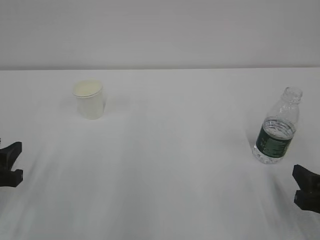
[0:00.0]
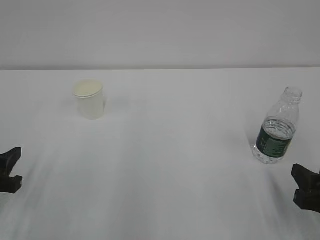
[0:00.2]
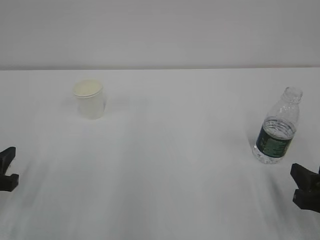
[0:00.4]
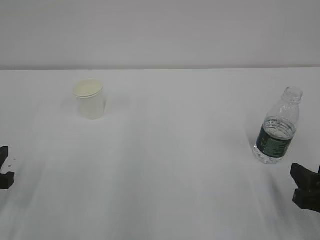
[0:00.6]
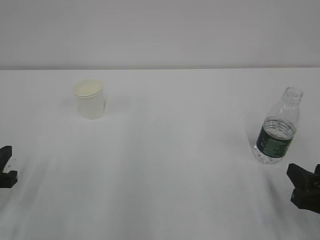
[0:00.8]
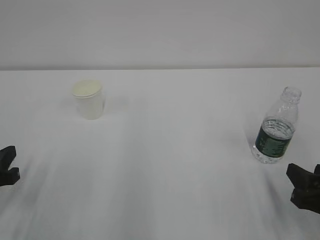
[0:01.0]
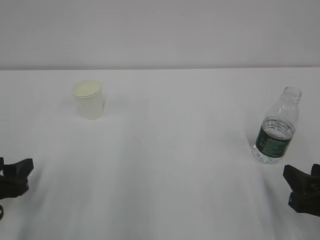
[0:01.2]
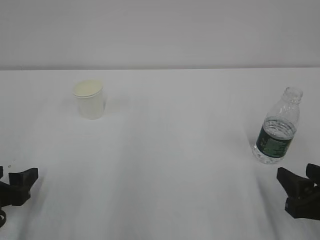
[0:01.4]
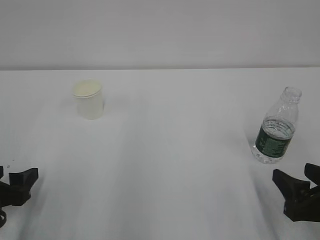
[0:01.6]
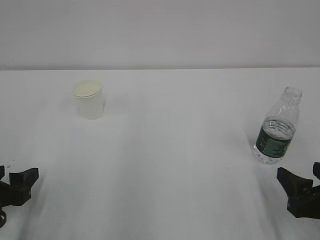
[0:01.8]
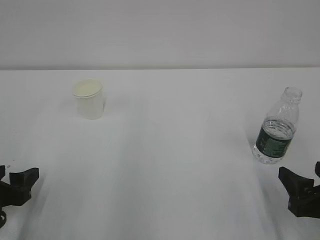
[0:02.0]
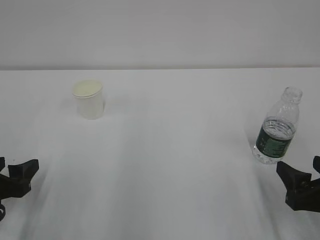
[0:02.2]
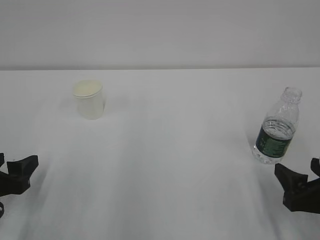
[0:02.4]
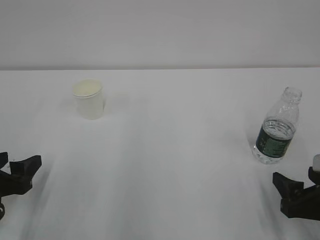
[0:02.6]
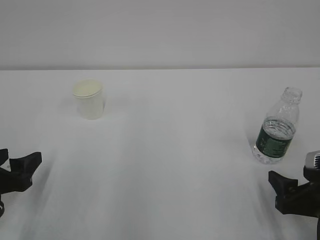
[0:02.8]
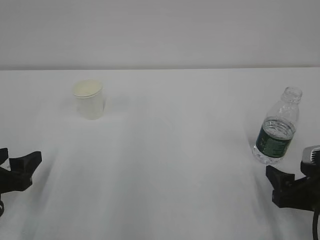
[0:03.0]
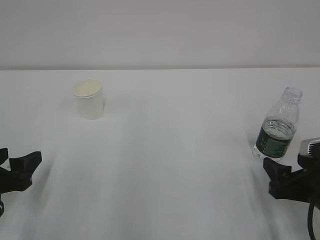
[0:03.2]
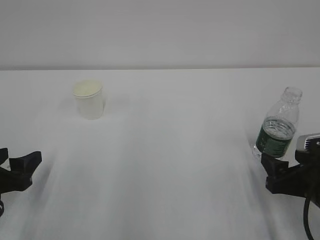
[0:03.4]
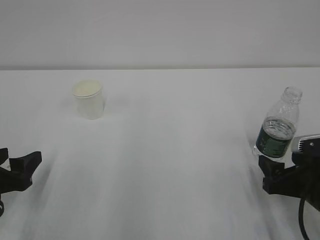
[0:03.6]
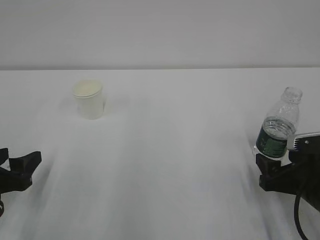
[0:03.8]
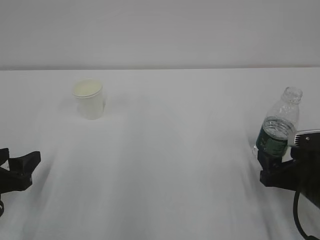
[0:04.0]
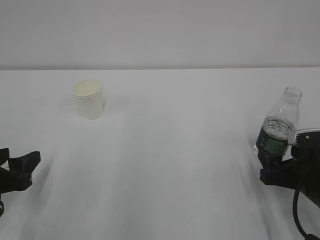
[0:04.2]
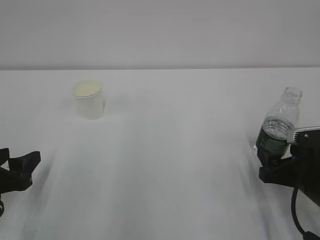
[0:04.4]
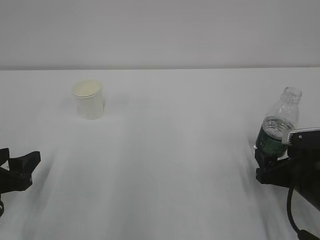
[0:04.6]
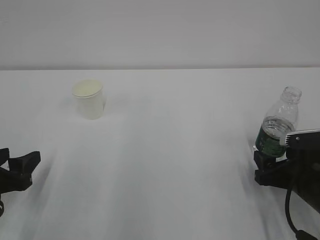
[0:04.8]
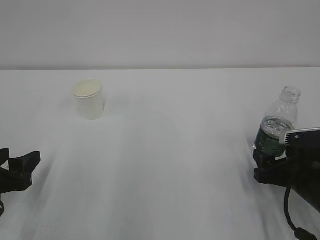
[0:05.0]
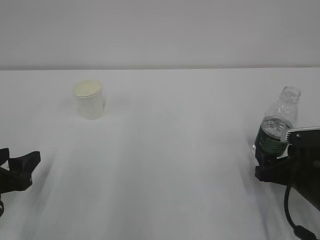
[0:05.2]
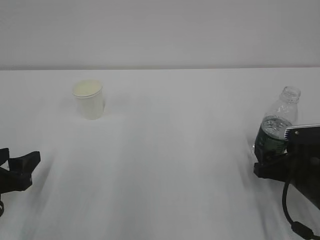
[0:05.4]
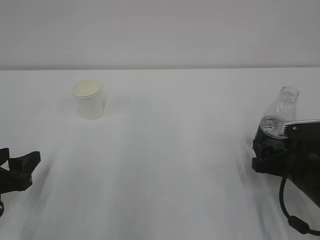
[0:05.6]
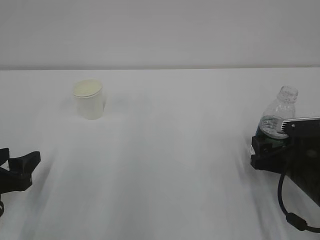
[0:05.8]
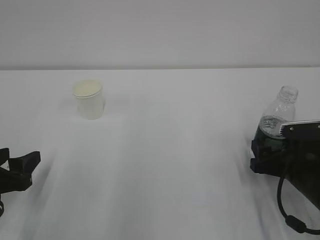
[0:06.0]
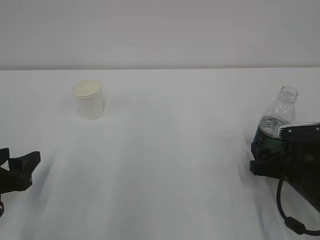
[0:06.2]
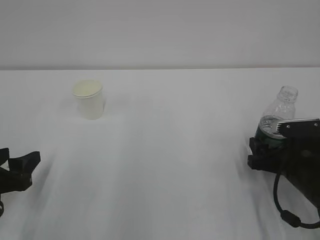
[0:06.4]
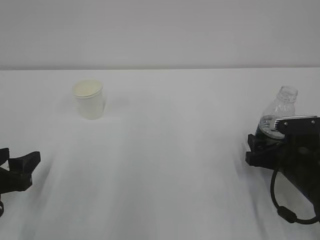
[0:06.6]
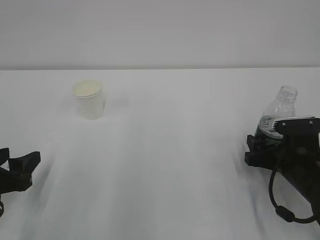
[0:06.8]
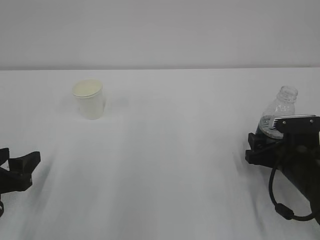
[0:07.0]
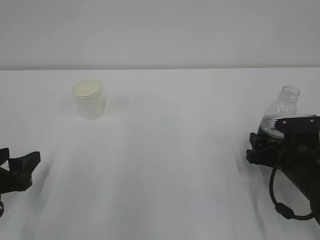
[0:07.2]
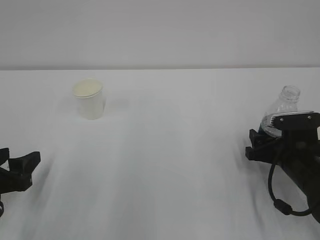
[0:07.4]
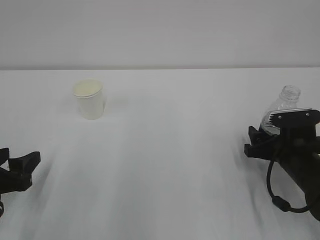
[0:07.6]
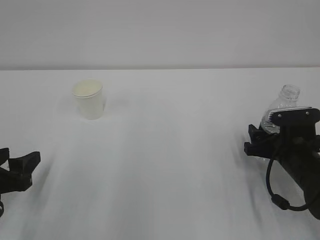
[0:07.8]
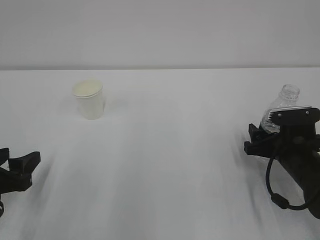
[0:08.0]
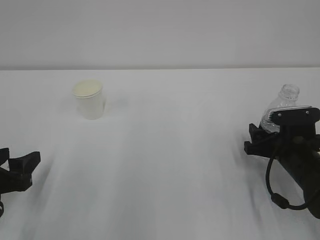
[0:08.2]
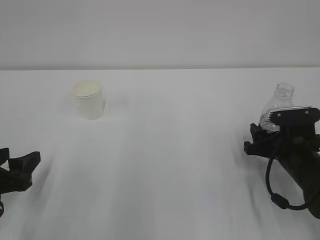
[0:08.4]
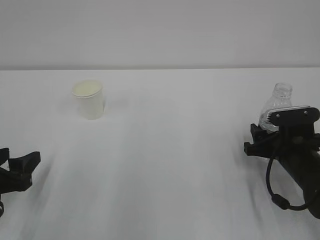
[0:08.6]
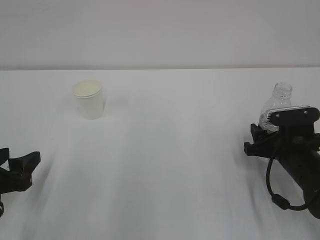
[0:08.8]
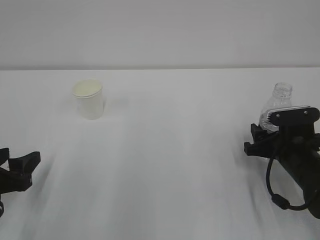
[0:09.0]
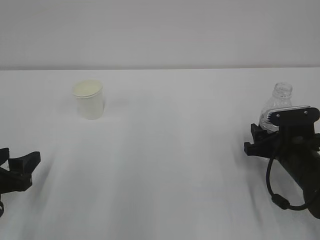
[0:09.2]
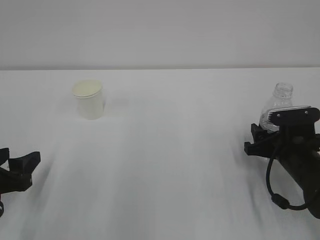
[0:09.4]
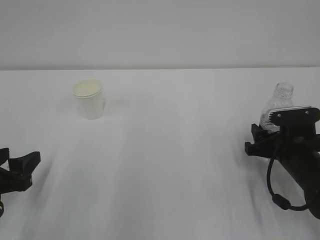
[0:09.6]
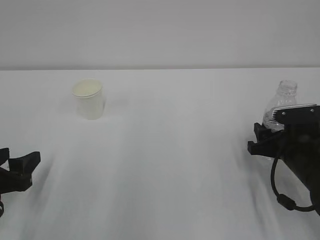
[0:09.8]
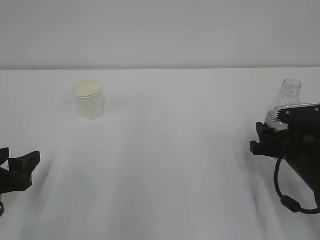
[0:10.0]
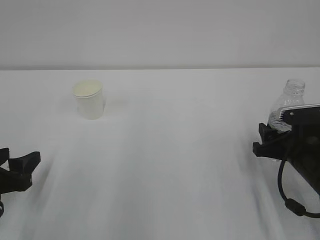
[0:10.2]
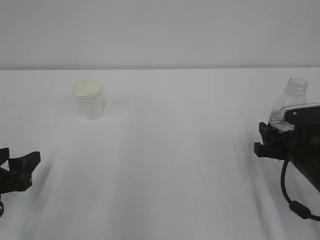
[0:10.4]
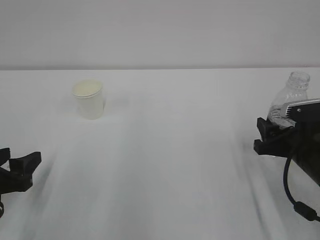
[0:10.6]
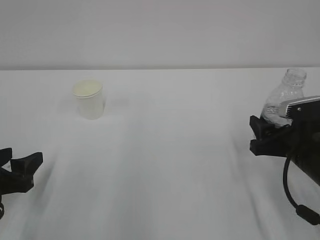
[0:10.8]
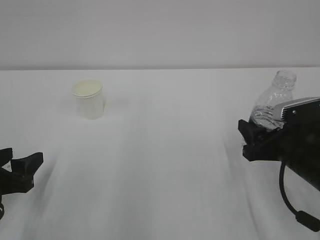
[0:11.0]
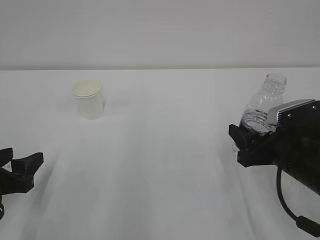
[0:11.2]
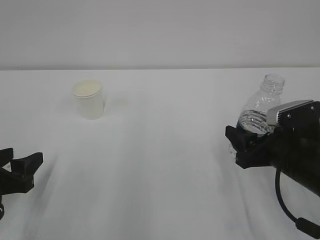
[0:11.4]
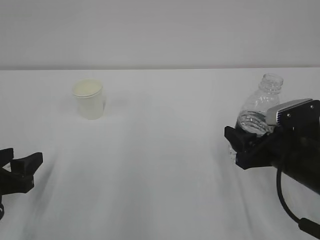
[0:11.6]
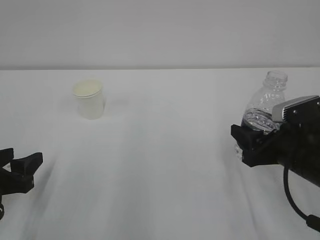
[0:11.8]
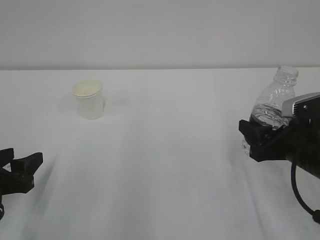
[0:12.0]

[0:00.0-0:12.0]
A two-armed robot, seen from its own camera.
0:00.0 to 0:01.6: The right gripper opens. The left gripper opens.
0:01.6 to 0:03.0: The grippers stay close to where they were, moving slightly.
0:03.0 to 0:04.4: The grippers stay close to where they were, moving slightly.
0:04.4 to 0:06.0: The grippers make only small movements.
0:06.0 to 0:07.6: The grippers move only a little.
0:07.6 to 0:09.0: The right gripper closes its fingers.
0:09.0 to 0:10.4: The grippers make only small movements.

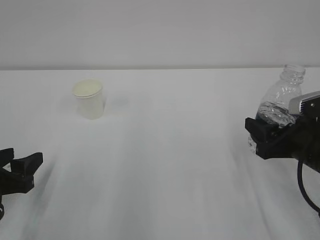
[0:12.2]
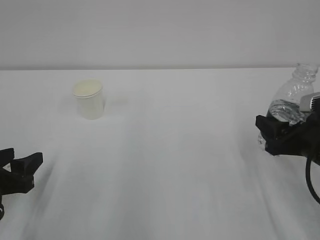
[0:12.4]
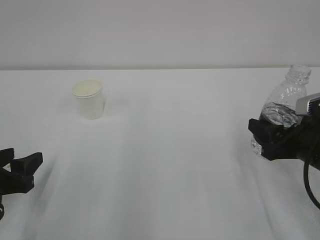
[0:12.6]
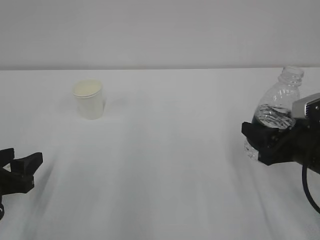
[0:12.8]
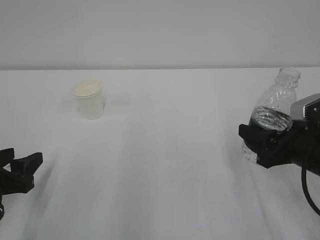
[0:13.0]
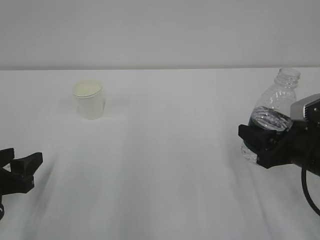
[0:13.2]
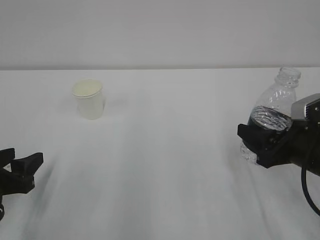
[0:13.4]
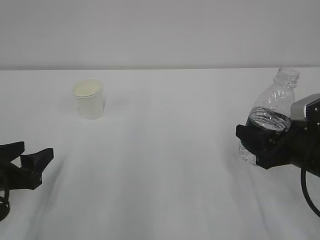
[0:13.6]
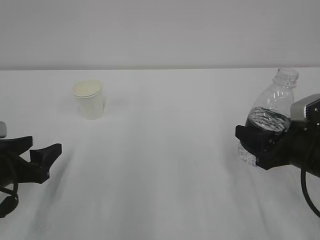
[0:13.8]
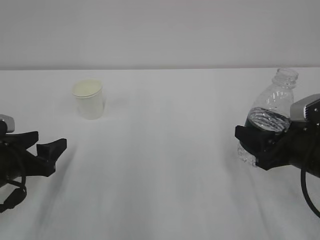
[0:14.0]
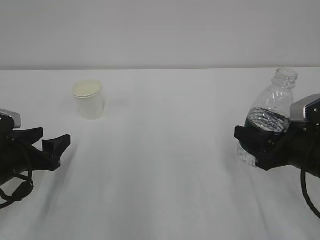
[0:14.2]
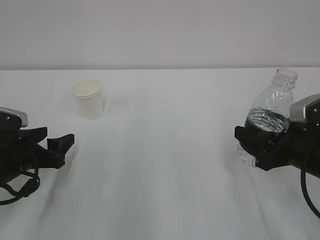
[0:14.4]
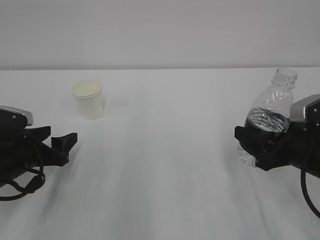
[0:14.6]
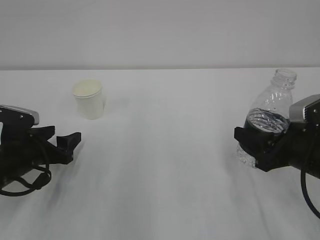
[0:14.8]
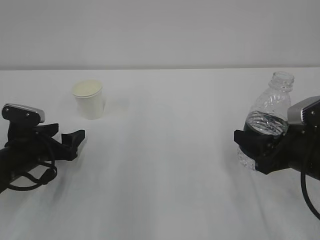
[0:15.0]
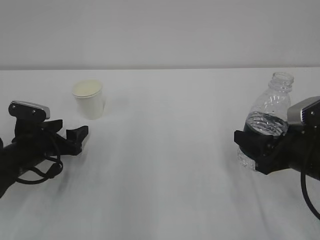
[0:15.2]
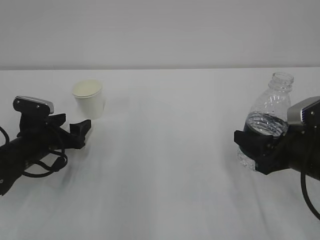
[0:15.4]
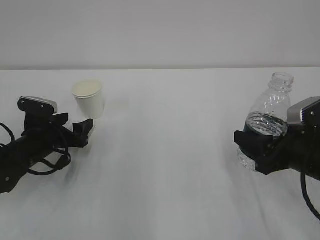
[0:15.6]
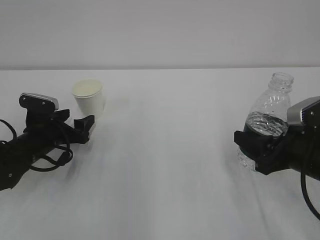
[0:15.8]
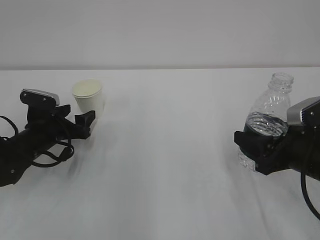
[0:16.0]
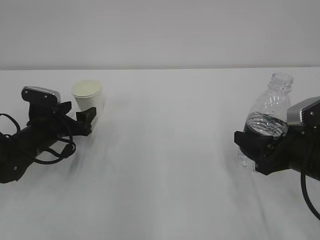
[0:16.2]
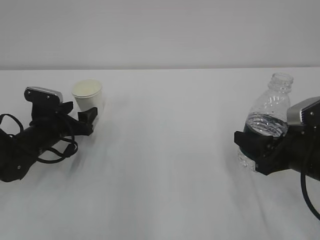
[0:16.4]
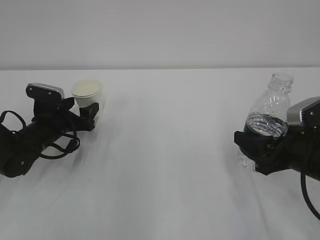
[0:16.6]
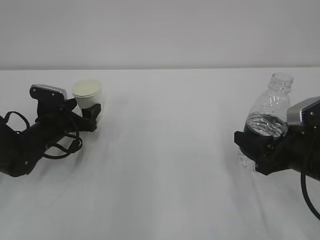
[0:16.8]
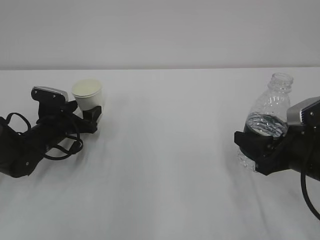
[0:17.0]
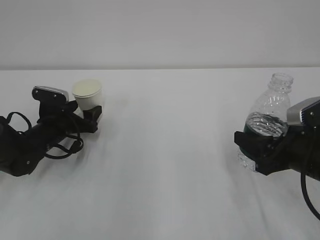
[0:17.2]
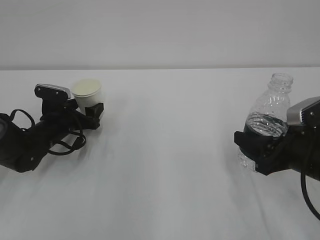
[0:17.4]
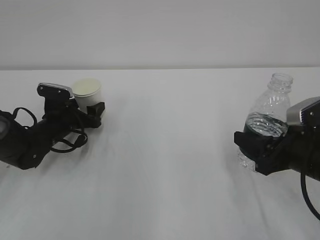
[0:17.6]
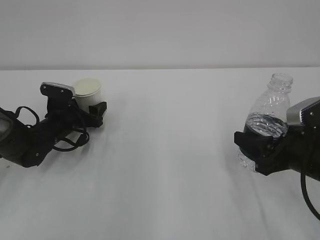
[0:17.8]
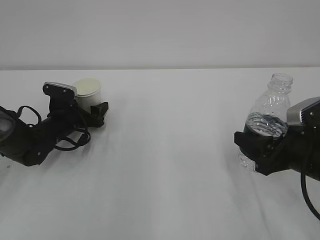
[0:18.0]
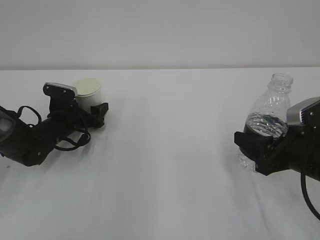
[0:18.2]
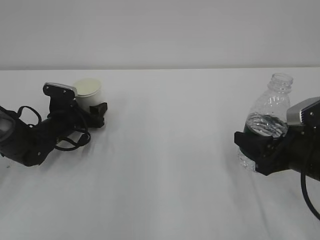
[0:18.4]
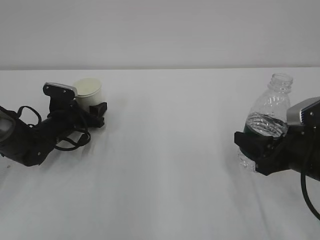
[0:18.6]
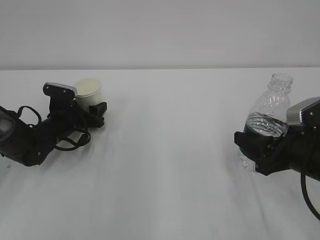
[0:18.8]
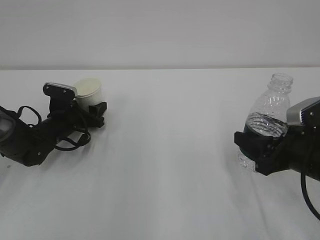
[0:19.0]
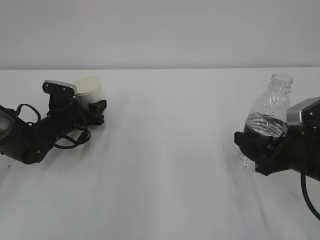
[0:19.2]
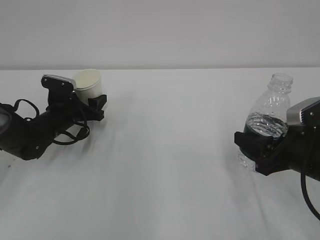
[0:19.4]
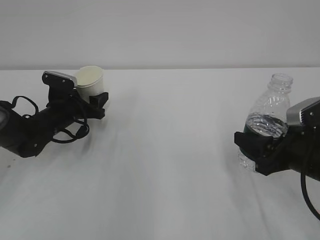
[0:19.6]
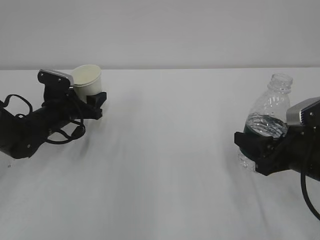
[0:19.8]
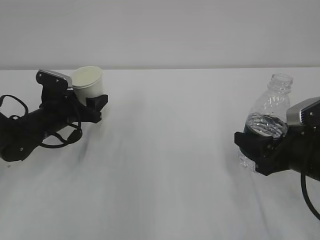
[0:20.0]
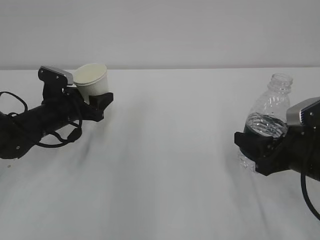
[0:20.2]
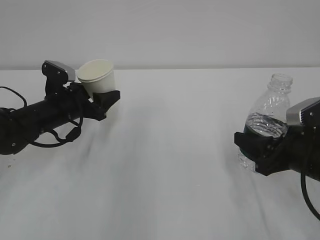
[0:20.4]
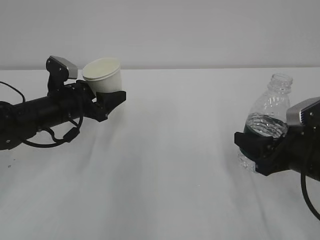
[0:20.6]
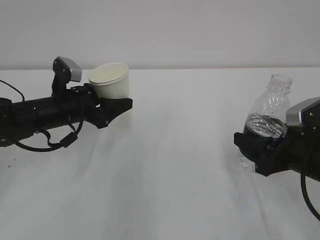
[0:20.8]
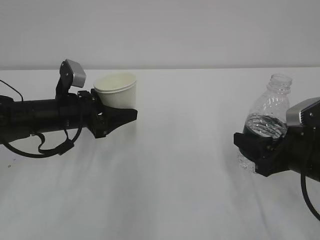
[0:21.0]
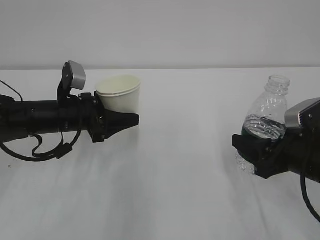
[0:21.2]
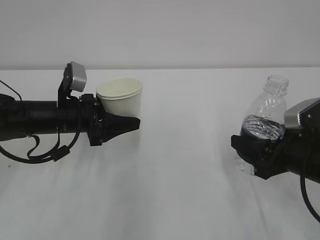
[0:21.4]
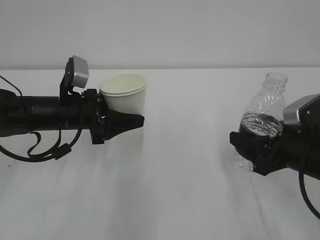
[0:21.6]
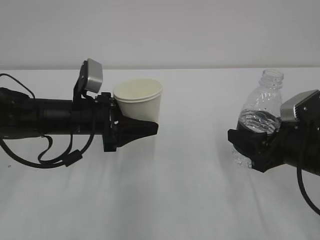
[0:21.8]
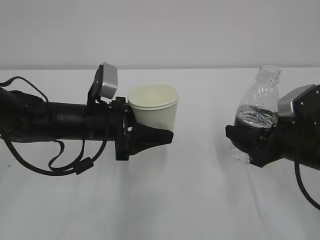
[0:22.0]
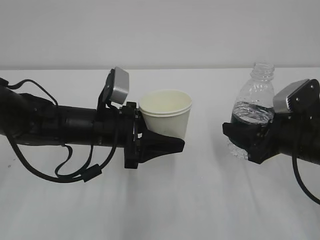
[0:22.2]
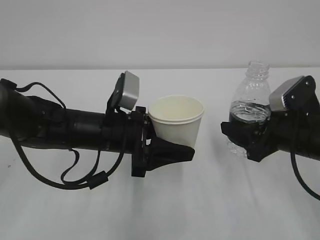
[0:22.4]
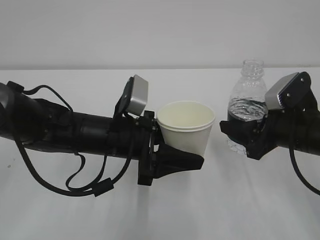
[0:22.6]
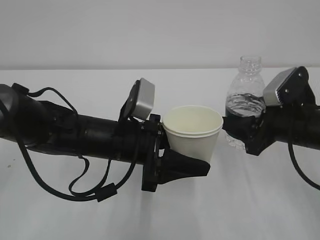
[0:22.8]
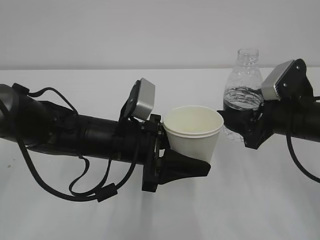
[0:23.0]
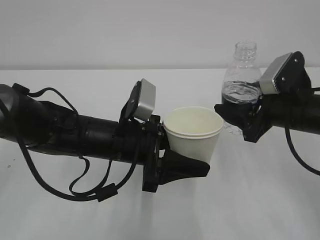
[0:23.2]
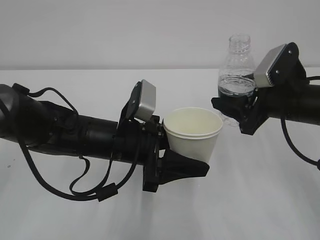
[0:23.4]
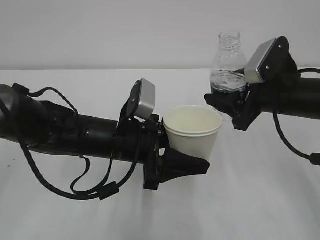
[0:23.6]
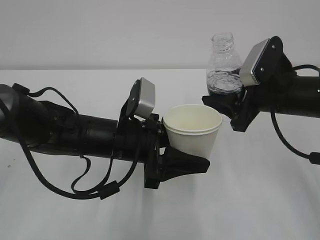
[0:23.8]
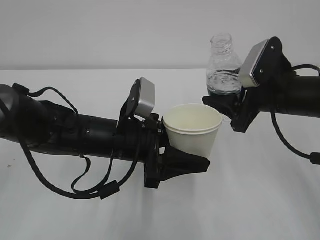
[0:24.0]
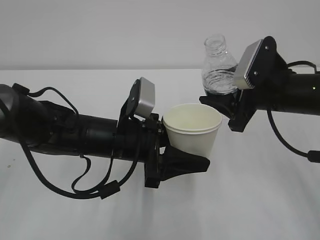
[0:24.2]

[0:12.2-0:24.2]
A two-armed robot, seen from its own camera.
0:12.2 to 0:13.8: The grippers move only a little.
0:13.8 to 0:15.2: The left gripper heads forward, covering some 10 cm.
0:15.2 to 0:16.6: The left gripper travels forward by some 5 cm.
0:16.6 to 0:18.2: There are only small adjustments of the grippers.
0:18.2 to 0:19.8: The left gripper closes its fingers.
0:19.8 to 0:21.2: The left gripper travels backward and upward by about 10 cm.
0:21.2 to 0:22.6: The left gripper is displaced to the right and backward by roughly 15 cm.
0:22.6 to 0:24.2: The right gripper moves about 5 cm.
